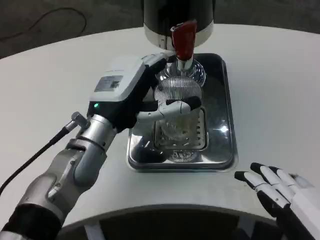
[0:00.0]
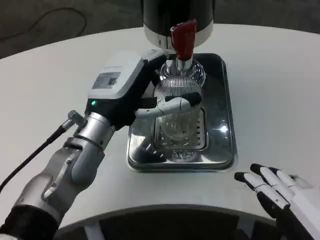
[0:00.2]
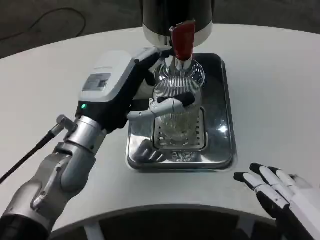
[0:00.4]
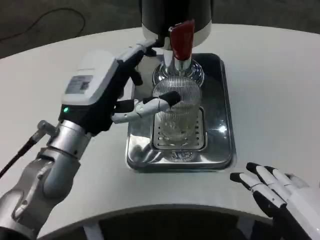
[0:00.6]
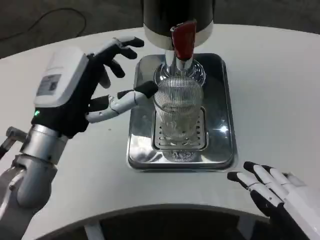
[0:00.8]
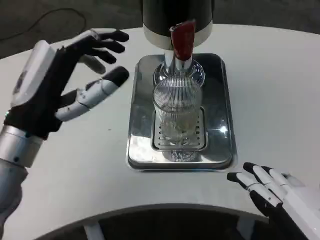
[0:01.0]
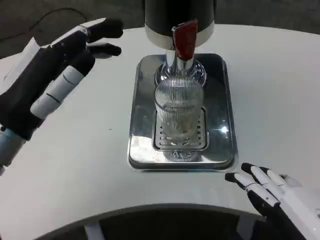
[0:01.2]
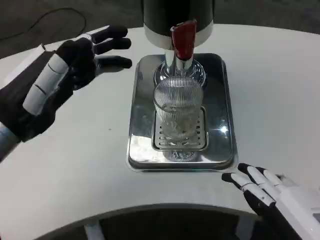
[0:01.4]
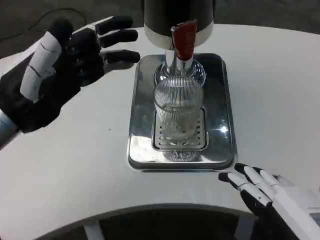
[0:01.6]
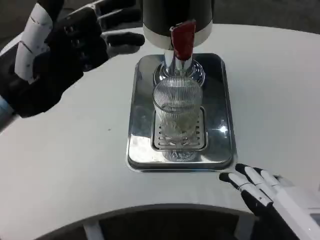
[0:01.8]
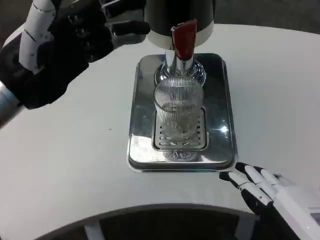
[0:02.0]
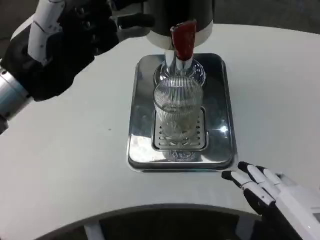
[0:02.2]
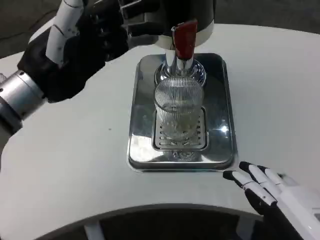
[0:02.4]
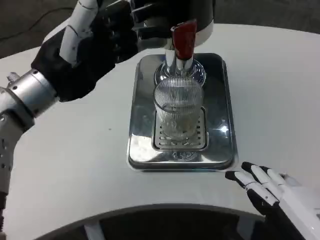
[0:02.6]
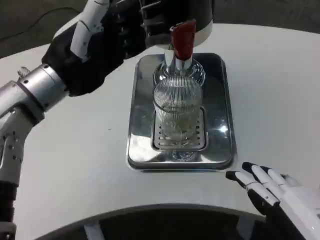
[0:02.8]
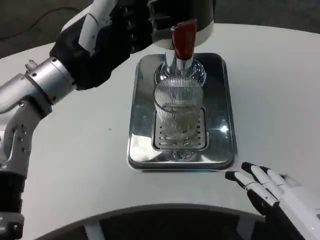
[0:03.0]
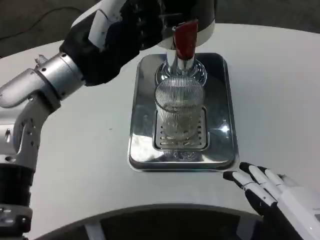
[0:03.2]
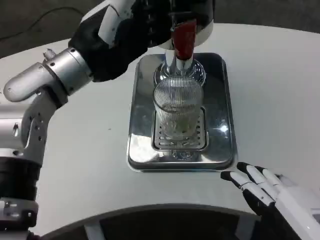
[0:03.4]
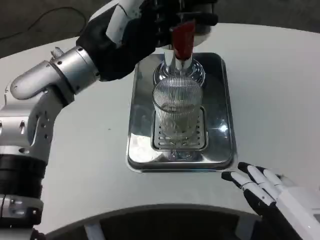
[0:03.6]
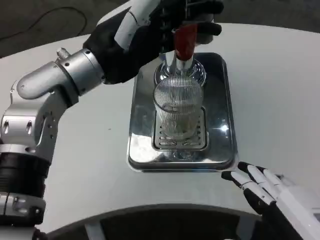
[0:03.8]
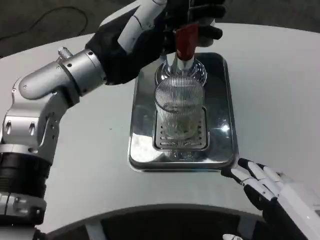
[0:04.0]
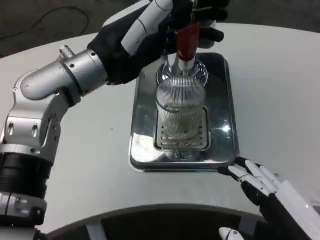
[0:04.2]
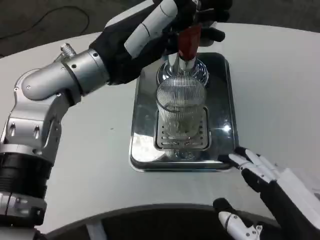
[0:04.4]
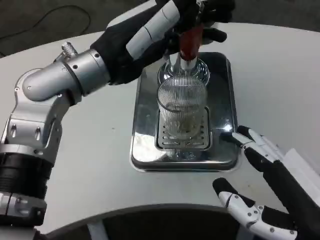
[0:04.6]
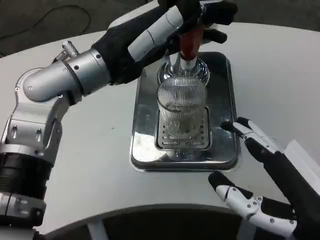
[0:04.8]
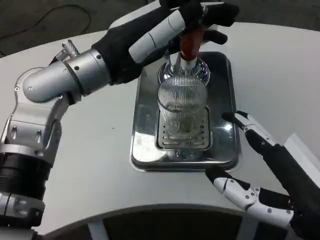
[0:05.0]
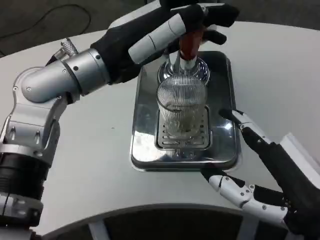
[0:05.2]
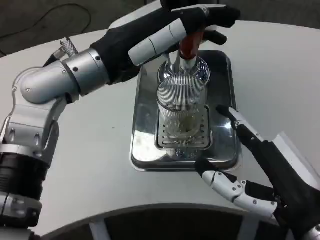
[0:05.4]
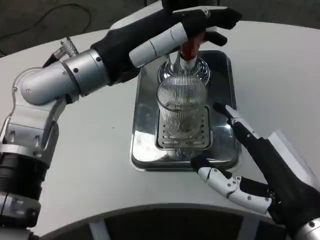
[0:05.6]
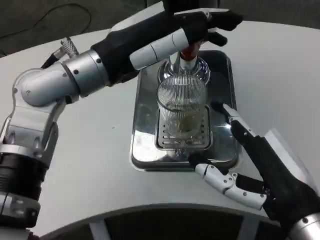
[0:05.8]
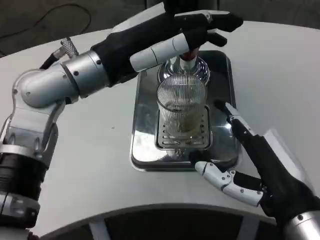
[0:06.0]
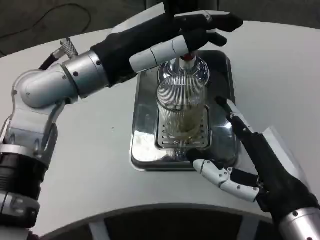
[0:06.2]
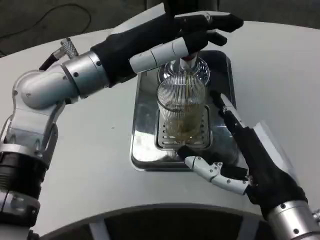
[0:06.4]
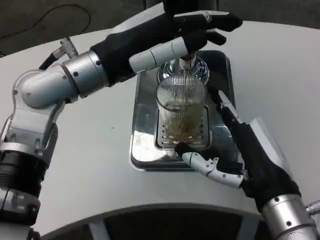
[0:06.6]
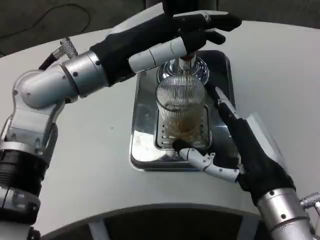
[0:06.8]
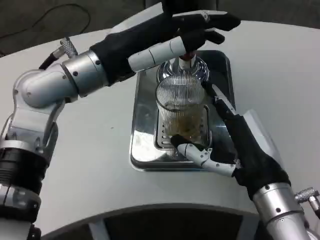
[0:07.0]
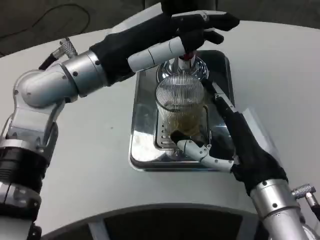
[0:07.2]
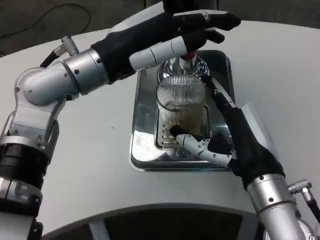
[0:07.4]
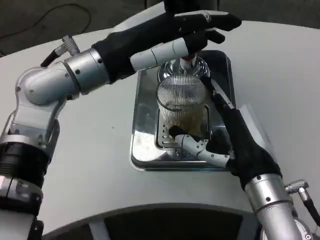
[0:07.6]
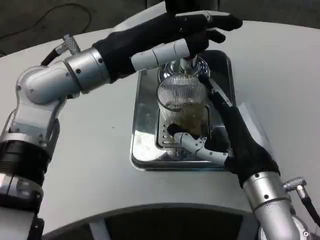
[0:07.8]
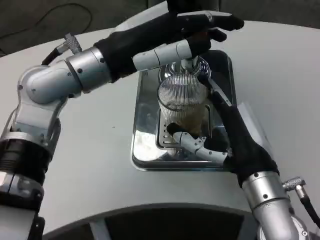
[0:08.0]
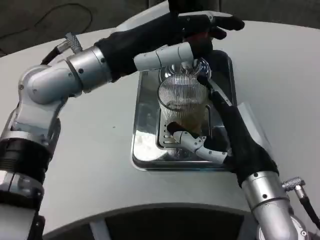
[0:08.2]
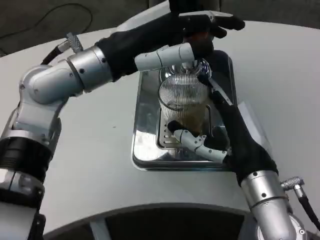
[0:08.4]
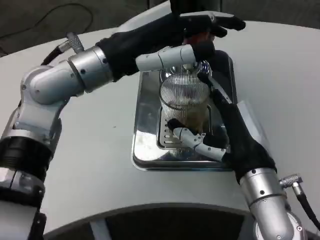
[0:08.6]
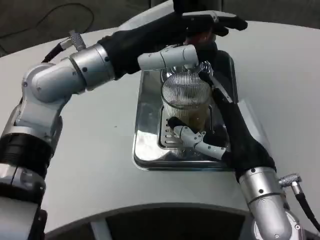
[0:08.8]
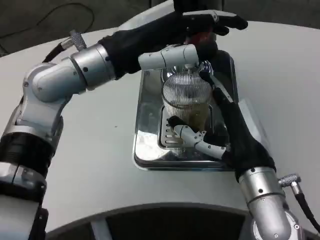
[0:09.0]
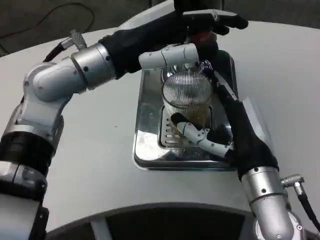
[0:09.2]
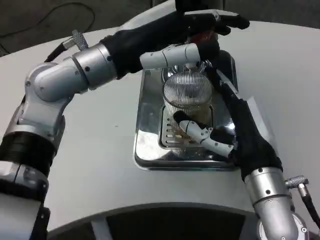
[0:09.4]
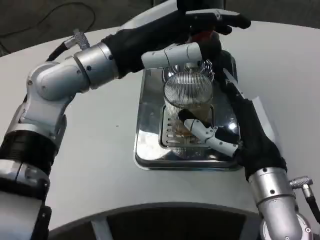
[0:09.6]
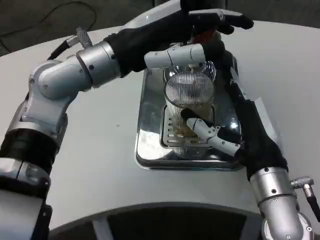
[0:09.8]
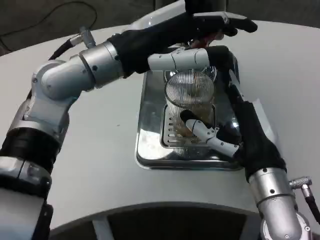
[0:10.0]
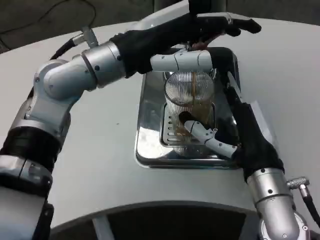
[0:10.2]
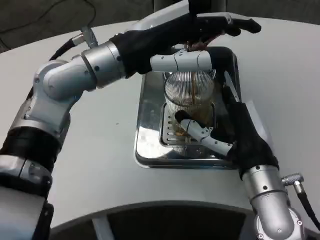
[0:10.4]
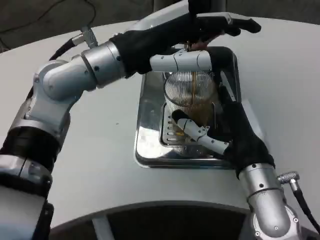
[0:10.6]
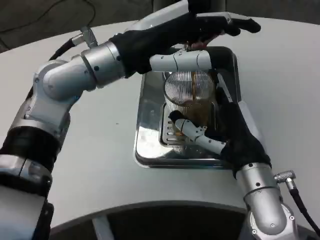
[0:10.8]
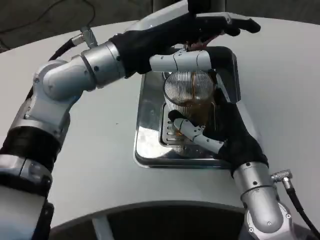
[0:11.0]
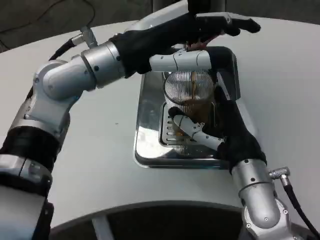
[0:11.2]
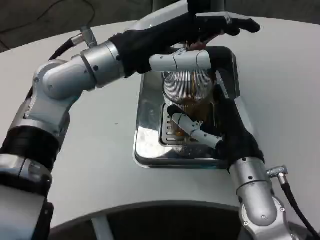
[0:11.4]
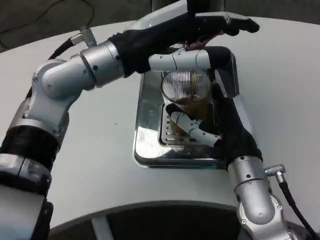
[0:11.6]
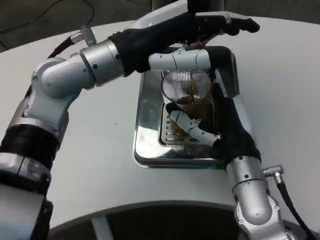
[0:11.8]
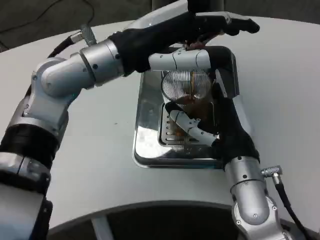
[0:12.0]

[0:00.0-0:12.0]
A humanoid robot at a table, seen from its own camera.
Task of the whole recording: Grasp the cup under the faucet to collect the drink, then remove the cup.
0:00.0 to 0:01.6: The left hand is displaced to the left, upward and backward by approximately 15 cm.
0:01.6 to 0:03.0: The left hand moves to the right and forward, about 10 cm.
0:04.4 to 0:06.0: The right hand moves forward, roughly 5 cm.
0:06.0 to 0:07.6: The right hand shifts approximately 5 cm forward.

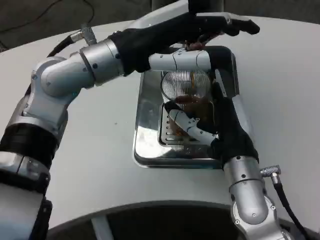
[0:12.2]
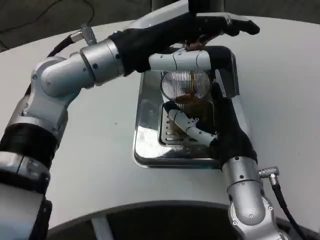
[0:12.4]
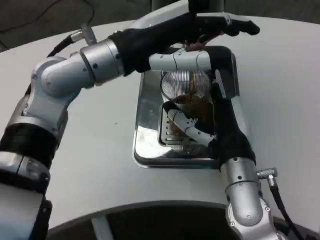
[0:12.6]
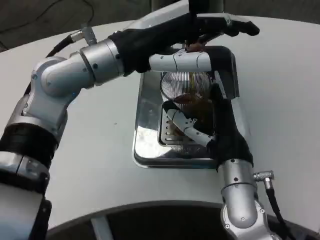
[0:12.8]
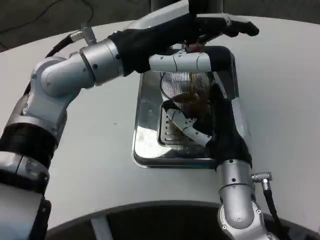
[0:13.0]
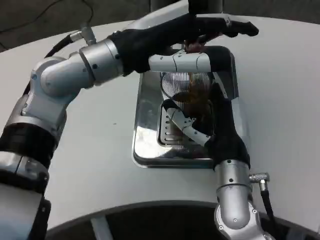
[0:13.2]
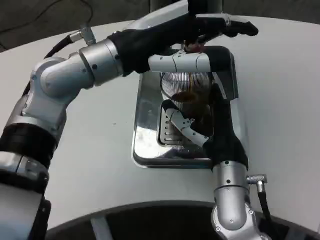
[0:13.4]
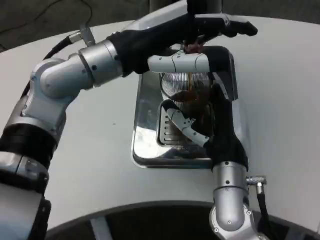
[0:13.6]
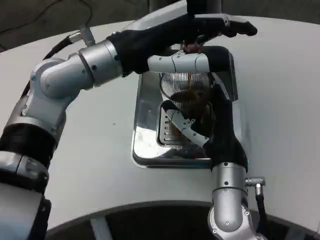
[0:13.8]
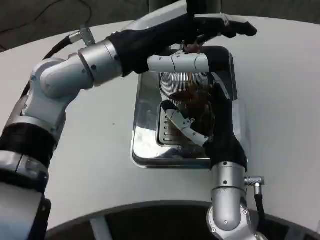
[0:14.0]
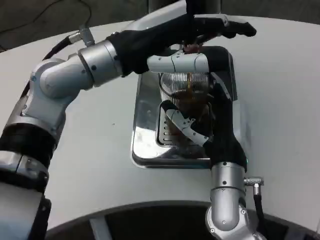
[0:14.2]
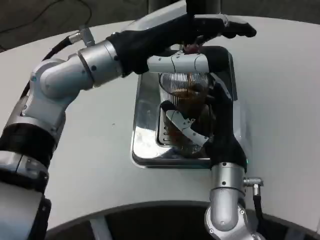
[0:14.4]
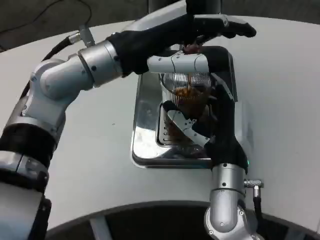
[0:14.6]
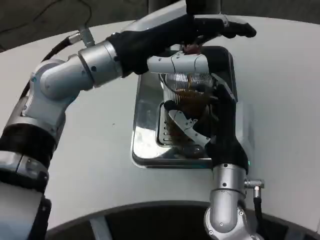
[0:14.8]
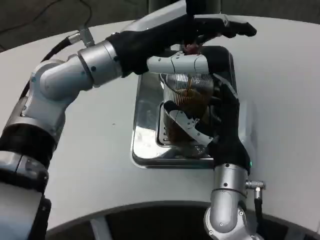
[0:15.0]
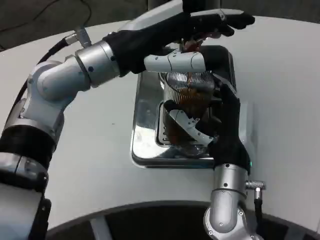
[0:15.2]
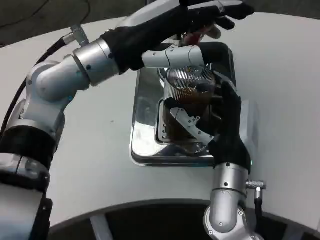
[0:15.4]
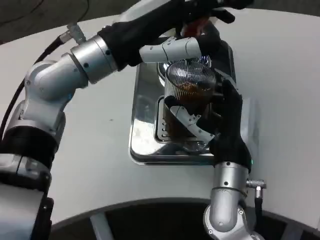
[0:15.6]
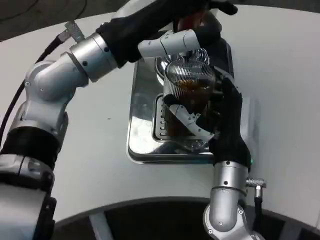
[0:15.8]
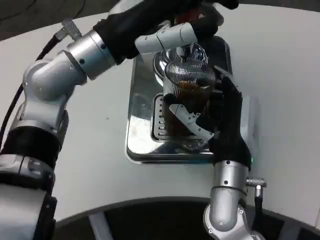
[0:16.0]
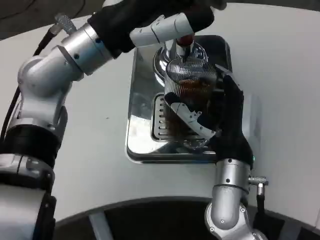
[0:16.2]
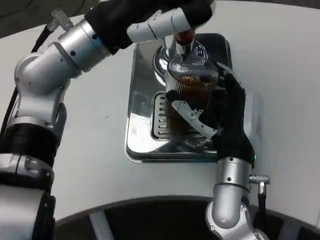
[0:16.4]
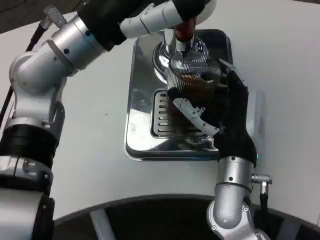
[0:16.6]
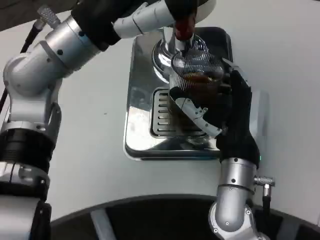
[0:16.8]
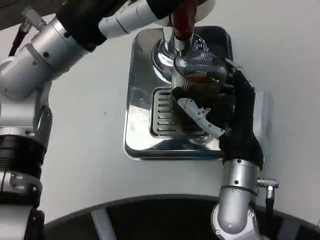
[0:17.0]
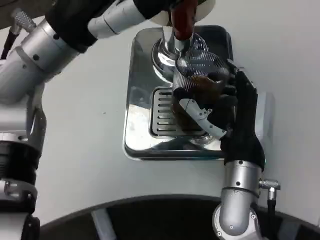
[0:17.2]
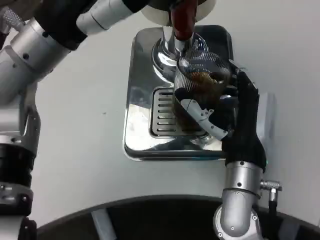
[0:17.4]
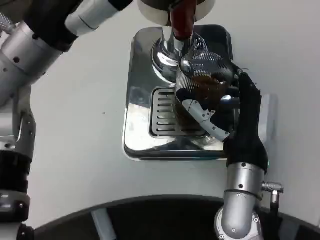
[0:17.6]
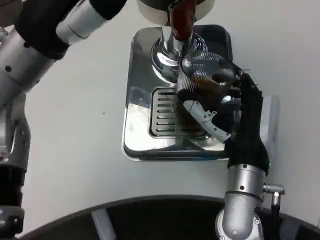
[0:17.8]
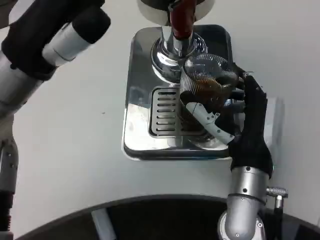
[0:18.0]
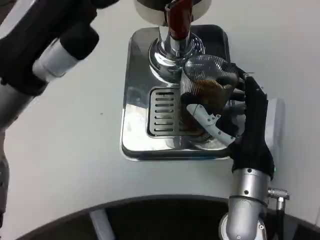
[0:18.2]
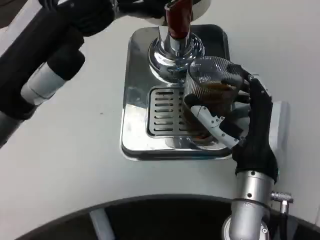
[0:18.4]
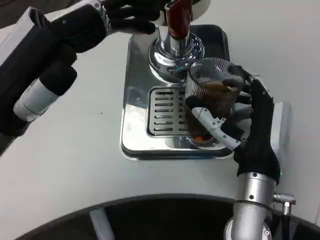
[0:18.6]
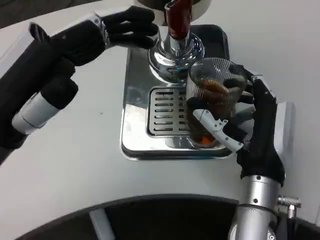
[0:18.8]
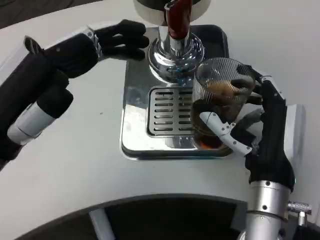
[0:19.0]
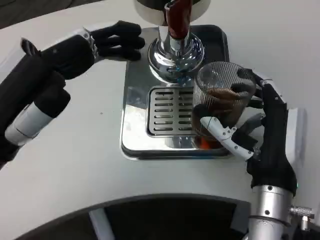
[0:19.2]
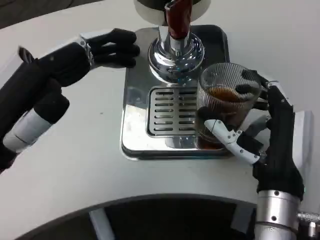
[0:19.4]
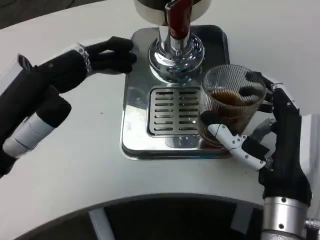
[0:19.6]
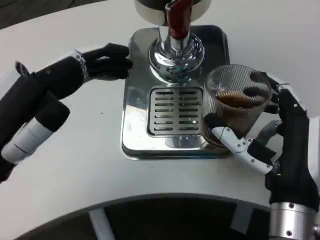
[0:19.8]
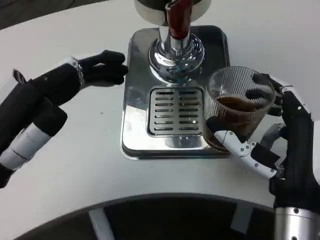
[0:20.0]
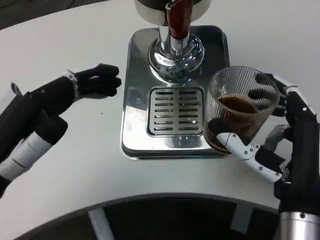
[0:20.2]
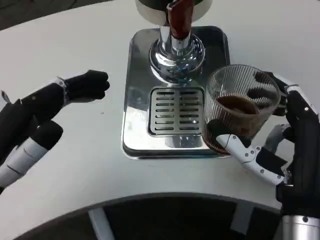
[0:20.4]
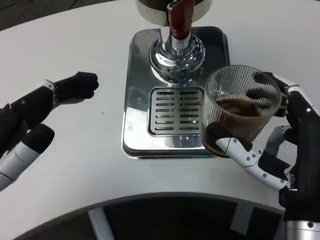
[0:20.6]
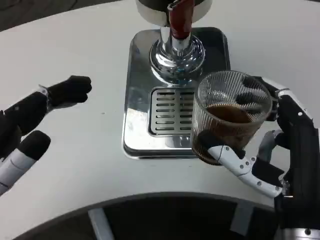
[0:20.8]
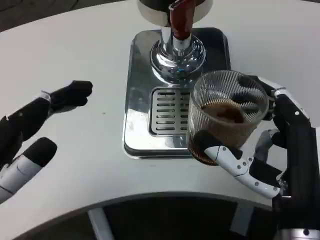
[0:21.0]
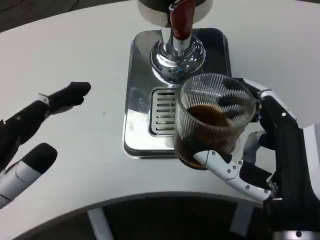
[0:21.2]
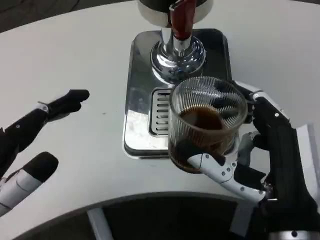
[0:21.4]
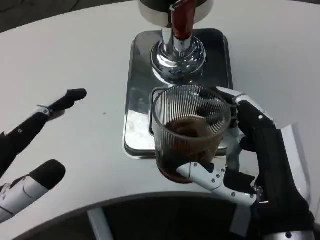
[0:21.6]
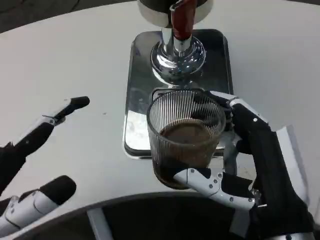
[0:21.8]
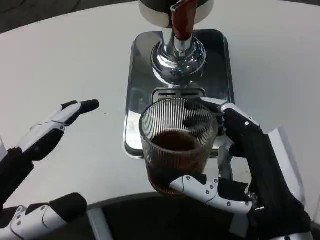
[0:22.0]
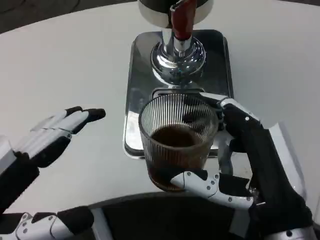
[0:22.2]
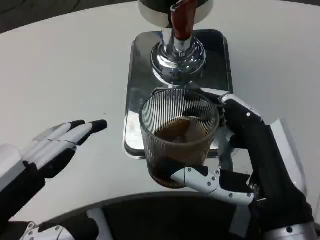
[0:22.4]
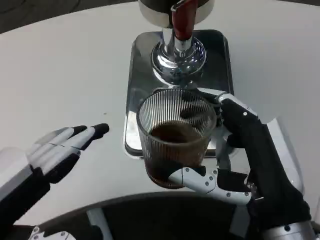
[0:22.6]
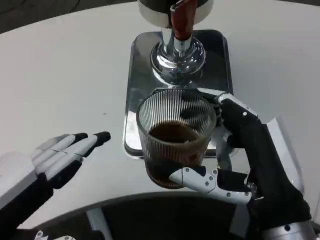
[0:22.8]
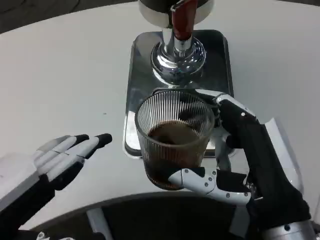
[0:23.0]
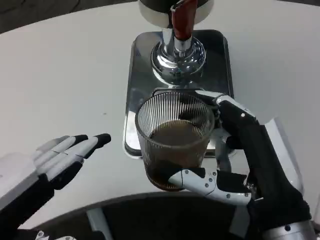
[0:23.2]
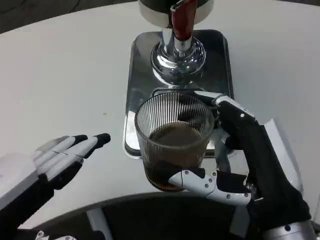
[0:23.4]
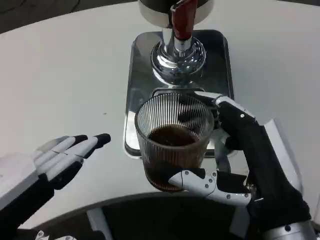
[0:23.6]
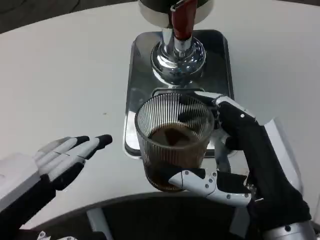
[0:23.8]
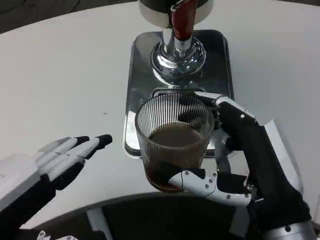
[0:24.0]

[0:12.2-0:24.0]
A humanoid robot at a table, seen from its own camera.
Task of the whole recording: Grasp the cup under the faucet to collect the drink, then remove the cup.
0:12.2 to 0:15.2: The hands make only small movements.
0:16.6 to 0:18.2: The left hand travels backward and to the left by some 10 cm.
0:18.2 to 0:19.6: The left hand travels downward and backward by approximately 10 cm. The right hand travels backward by some 5 cm.
0:19.6 to 0:21.0: The two hands go some 5 cm backward.
0:22.6 to 0:24.0: The two hands keep their place.
